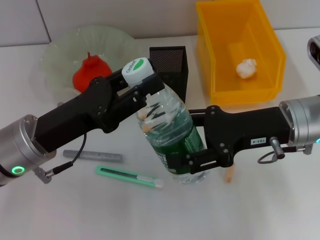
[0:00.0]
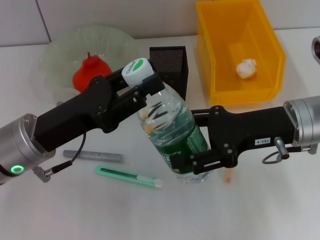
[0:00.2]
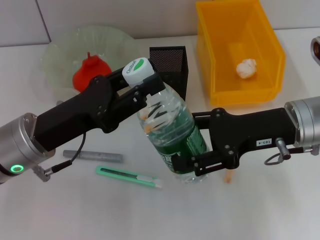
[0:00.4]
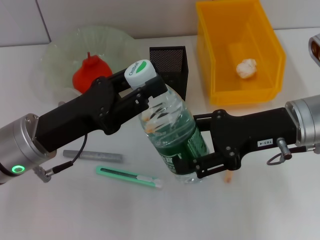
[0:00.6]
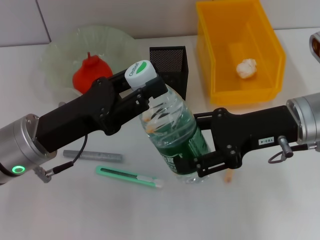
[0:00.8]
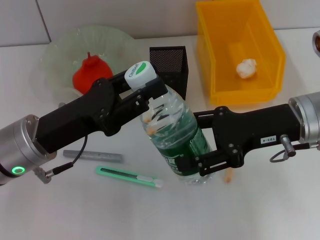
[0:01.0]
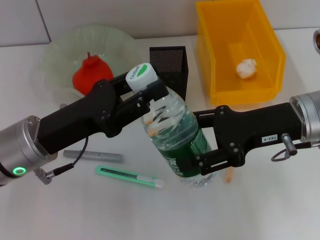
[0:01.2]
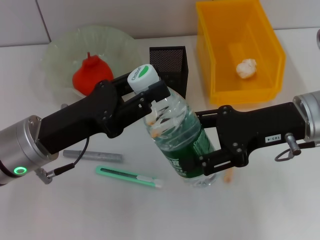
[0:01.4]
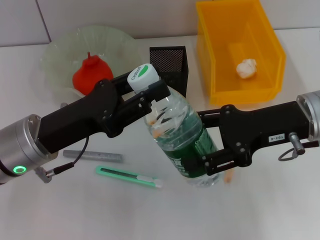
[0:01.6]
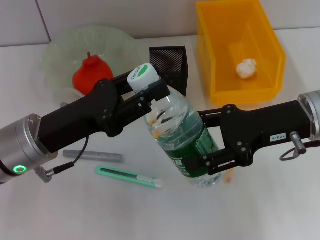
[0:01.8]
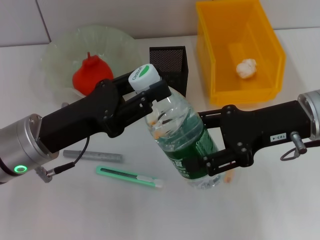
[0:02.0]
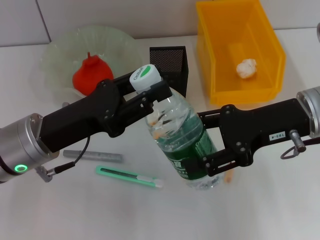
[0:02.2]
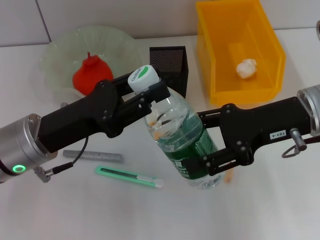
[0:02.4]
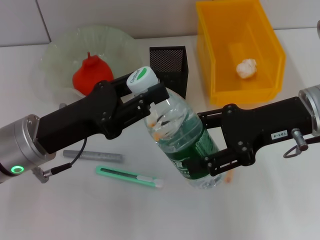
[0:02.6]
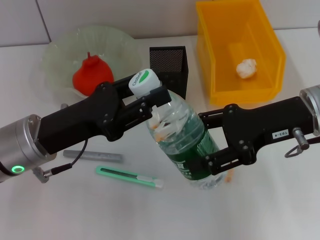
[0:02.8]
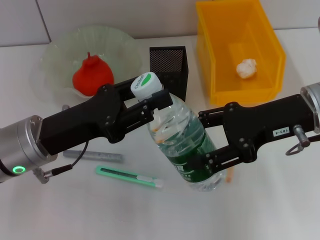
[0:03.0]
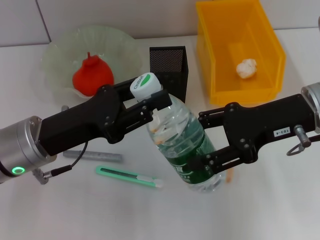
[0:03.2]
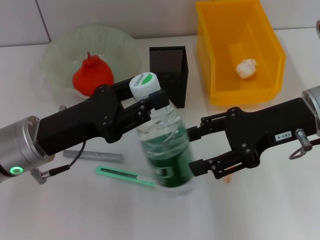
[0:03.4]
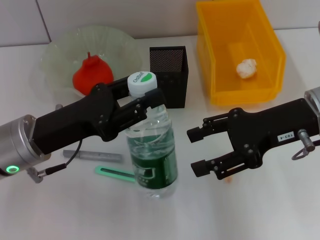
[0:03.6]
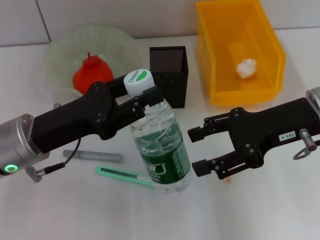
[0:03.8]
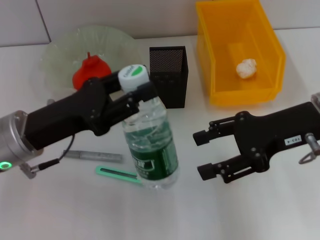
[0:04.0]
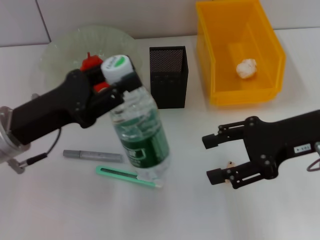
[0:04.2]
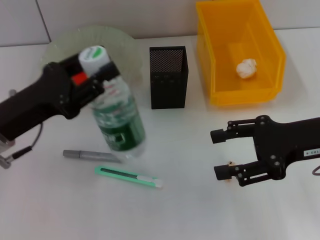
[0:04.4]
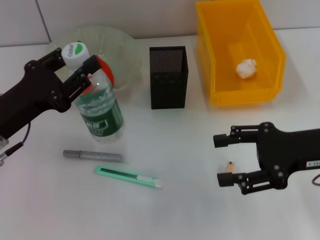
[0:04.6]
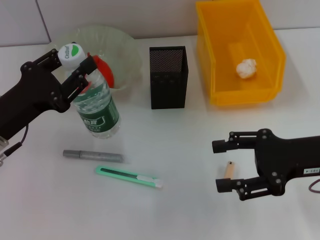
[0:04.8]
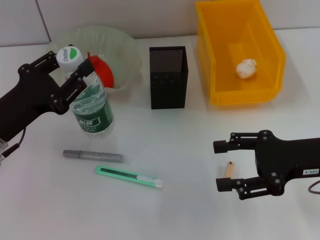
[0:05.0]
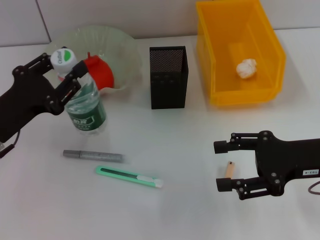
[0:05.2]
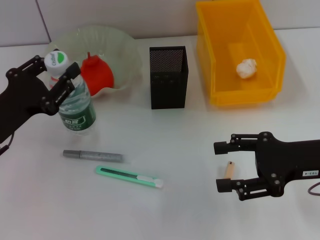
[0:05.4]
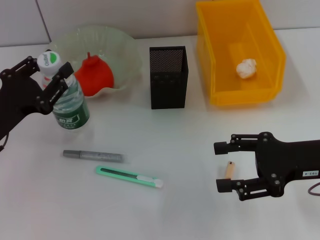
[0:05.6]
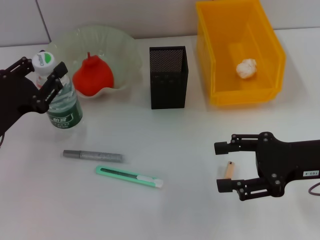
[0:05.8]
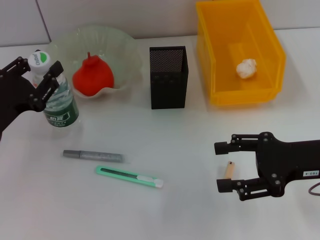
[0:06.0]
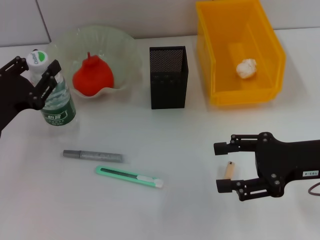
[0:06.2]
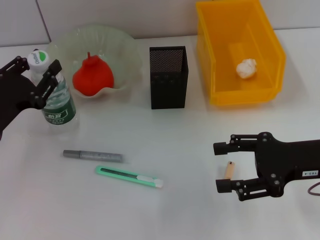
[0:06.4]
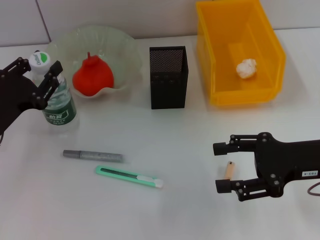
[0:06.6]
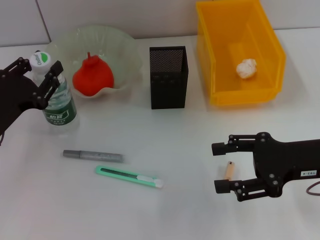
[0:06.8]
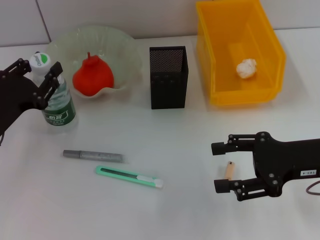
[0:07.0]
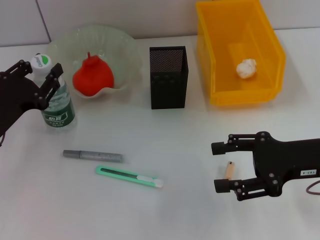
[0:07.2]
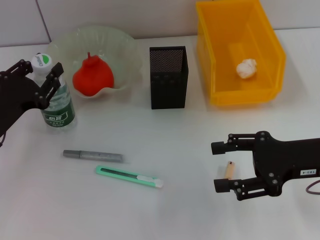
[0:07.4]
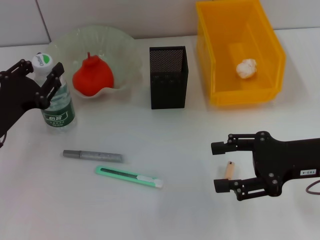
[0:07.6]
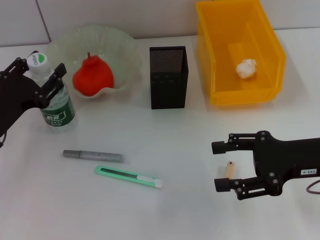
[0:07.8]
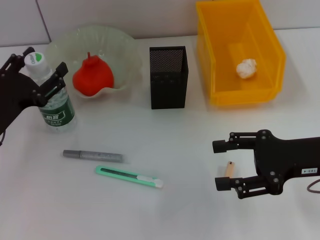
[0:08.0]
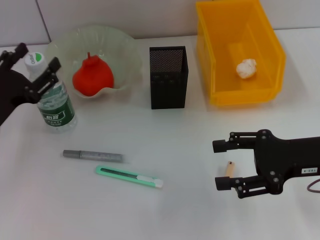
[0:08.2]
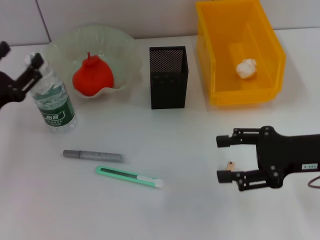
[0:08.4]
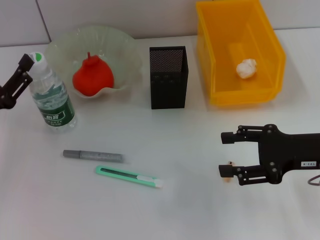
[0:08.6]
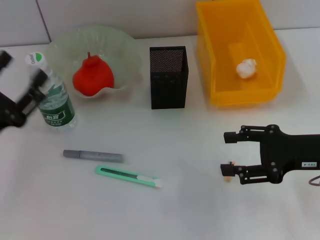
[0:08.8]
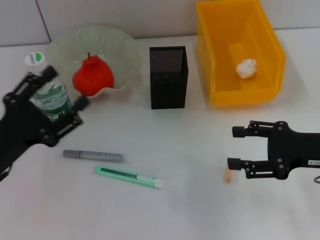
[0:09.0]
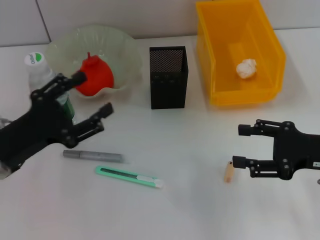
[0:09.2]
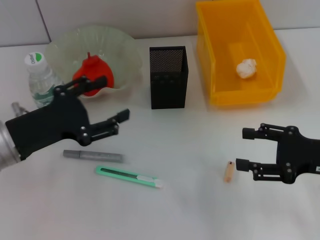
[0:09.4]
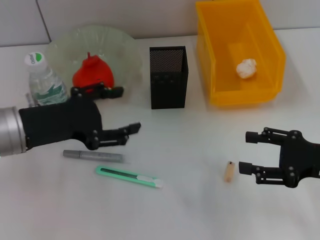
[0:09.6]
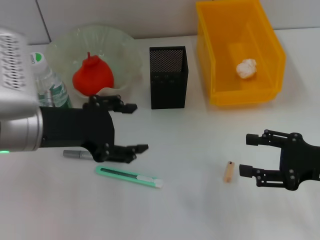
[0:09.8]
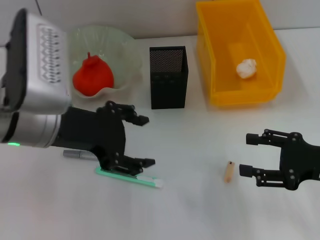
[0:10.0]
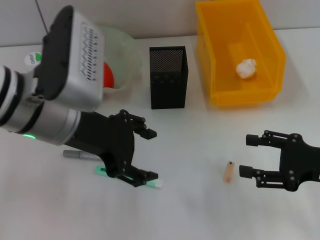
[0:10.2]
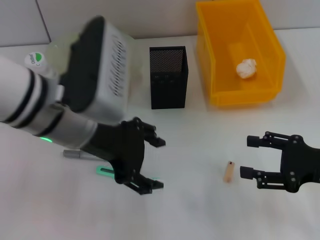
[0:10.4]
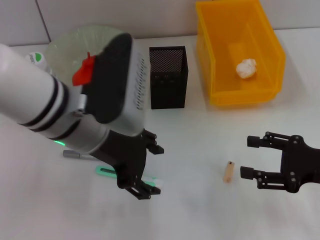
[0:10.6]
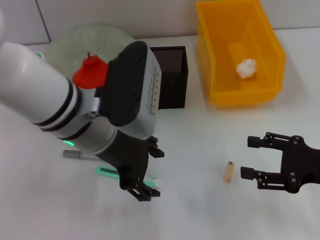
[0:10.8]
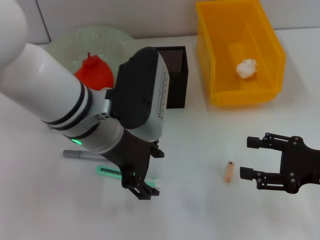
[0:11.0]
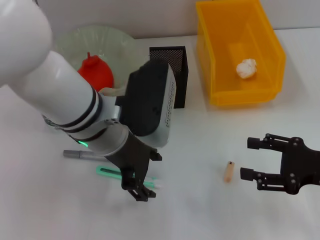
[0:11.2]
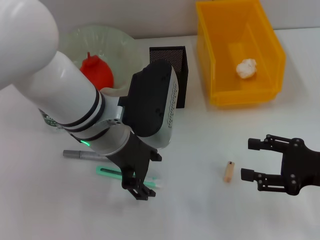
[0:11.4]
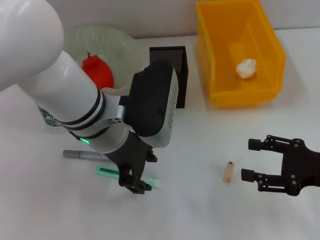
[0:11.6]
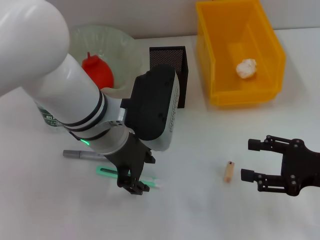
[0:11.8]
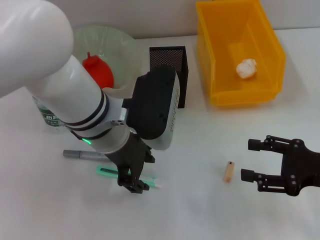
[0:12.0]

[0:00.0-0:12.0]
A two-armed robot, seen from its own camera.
Step, 0:00.0 to 0:03.2: Pass the water bottle from the right hand to the left hand.
Step, 0:03.6 to 0:08.0: Place the water bottle on the table with the left hand.
0:00.0 to 0:03.0: The grippers stay close to where they were, moving slightly.
0:03.0 to 0:04.4: The right gripper shifts by approximately 5 cm.
0:04.4 to 0:06.0: The left gripper changes place by some 5 cm.
0:06.0 to 0:07.6: The grippers make only small movements.
0:07.6 to 0:09.0: The left gripper is displaced backward by about 5 cm, and opens.
0:09.0 to 0:10.4: The left gripper goes about 20 cm to the right and upward.
0:10.4 to 0:12.0: The left gripper changes place by approximately 5 cm.

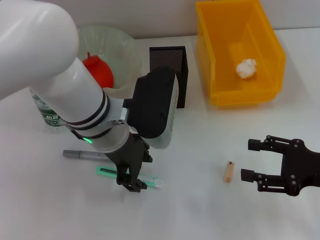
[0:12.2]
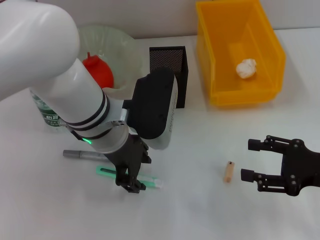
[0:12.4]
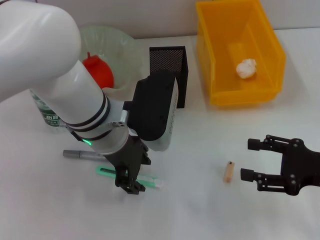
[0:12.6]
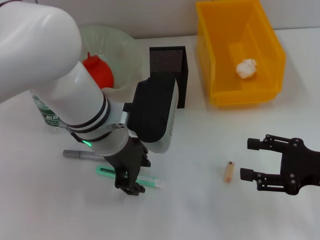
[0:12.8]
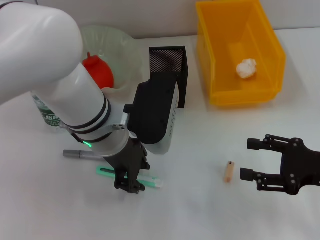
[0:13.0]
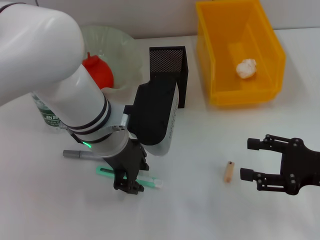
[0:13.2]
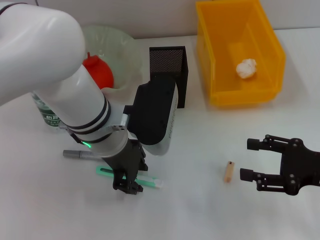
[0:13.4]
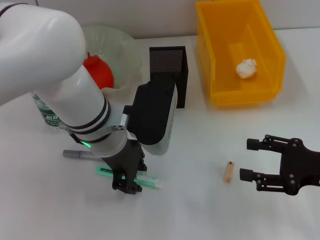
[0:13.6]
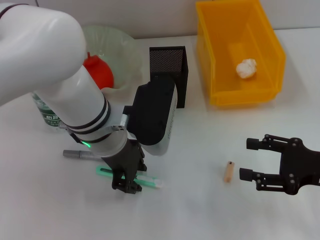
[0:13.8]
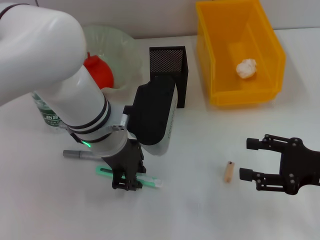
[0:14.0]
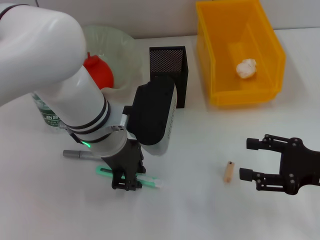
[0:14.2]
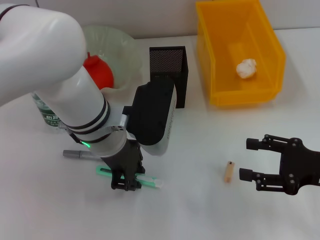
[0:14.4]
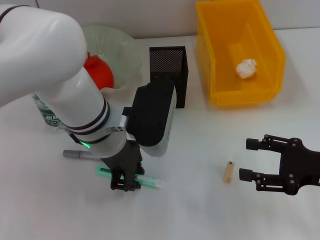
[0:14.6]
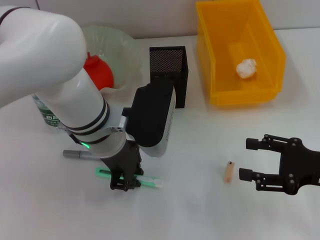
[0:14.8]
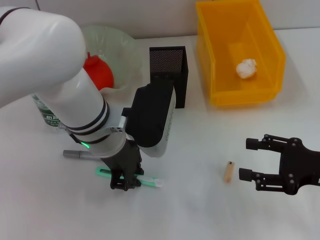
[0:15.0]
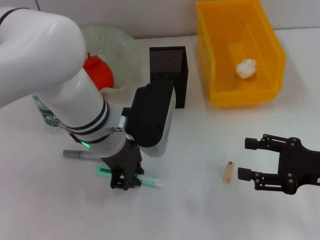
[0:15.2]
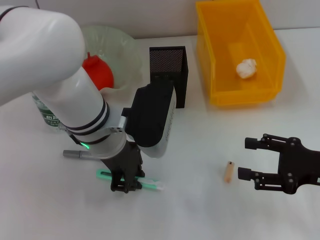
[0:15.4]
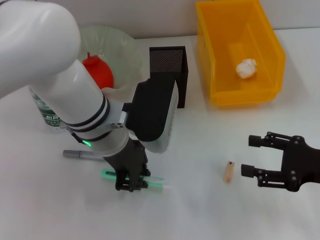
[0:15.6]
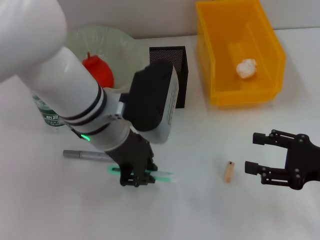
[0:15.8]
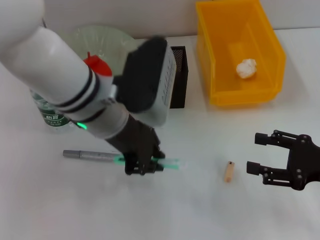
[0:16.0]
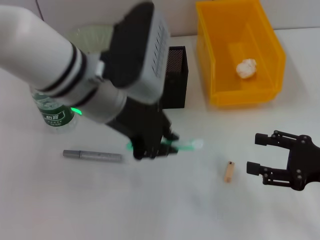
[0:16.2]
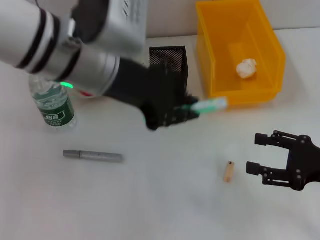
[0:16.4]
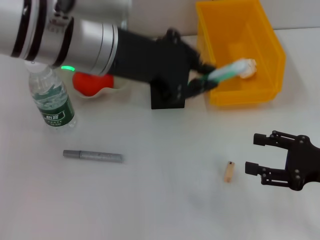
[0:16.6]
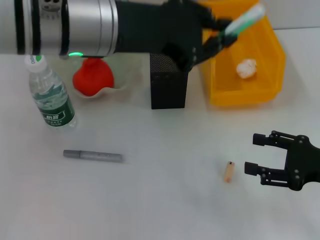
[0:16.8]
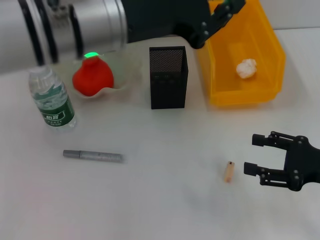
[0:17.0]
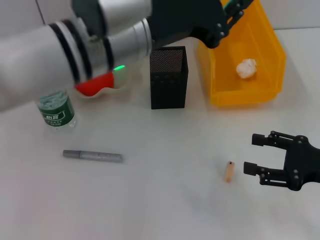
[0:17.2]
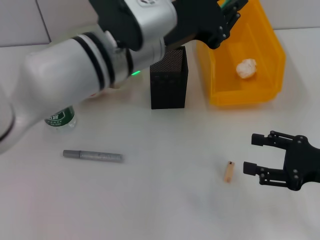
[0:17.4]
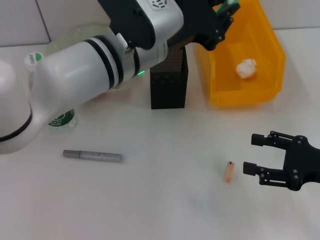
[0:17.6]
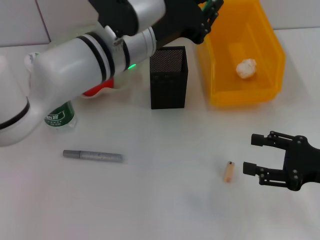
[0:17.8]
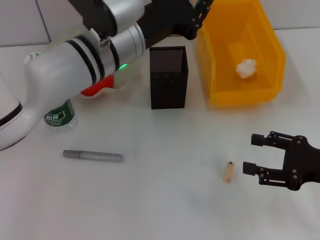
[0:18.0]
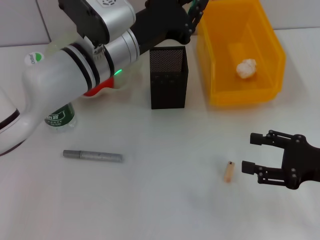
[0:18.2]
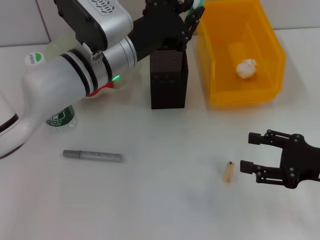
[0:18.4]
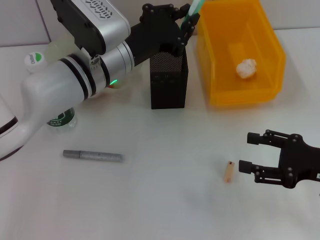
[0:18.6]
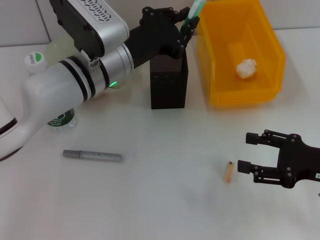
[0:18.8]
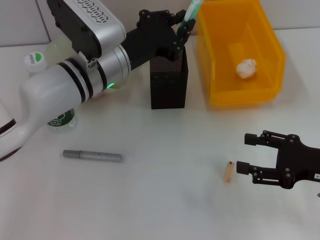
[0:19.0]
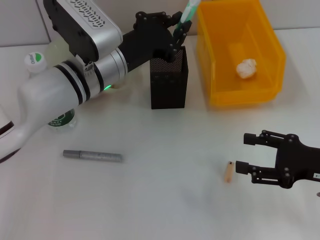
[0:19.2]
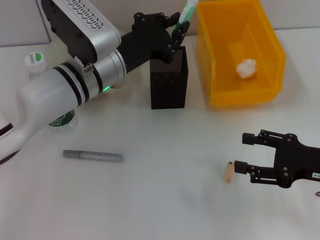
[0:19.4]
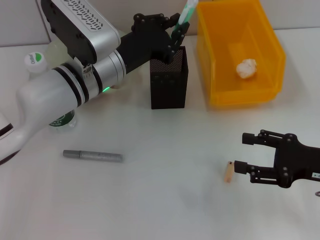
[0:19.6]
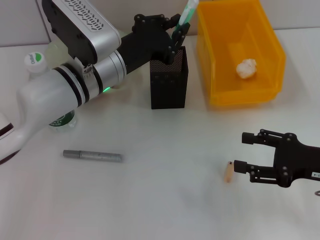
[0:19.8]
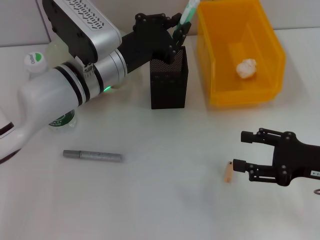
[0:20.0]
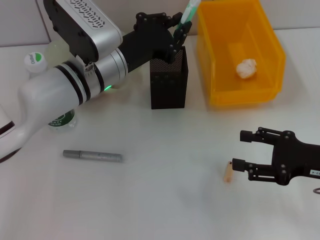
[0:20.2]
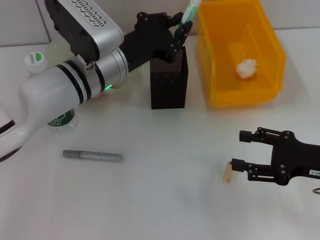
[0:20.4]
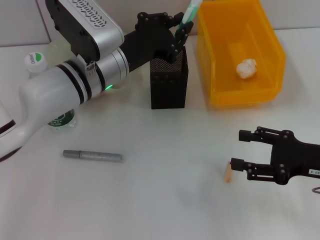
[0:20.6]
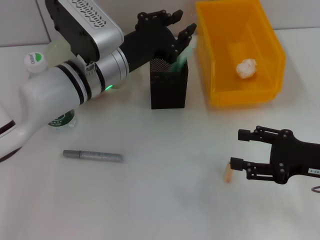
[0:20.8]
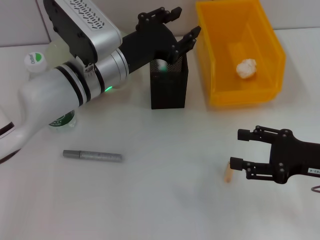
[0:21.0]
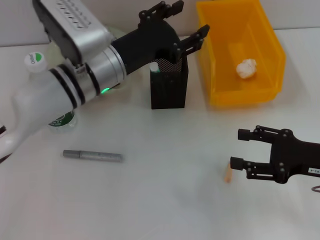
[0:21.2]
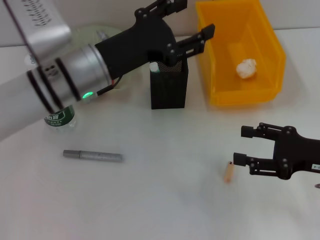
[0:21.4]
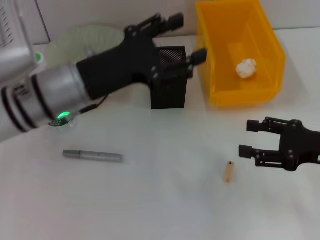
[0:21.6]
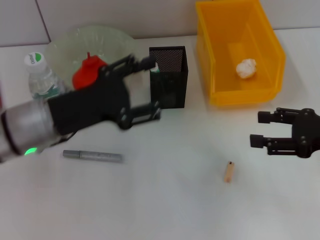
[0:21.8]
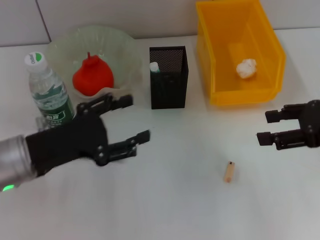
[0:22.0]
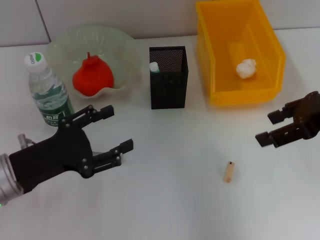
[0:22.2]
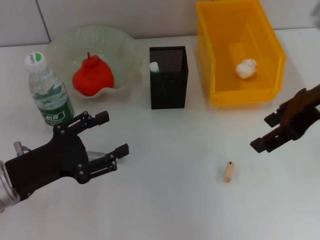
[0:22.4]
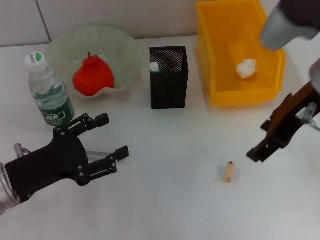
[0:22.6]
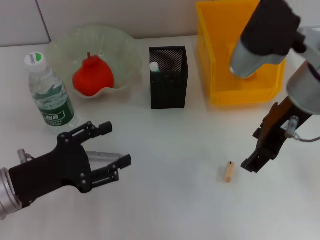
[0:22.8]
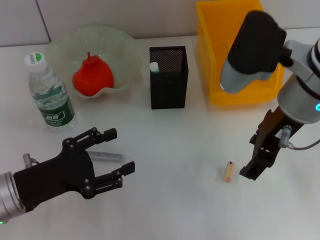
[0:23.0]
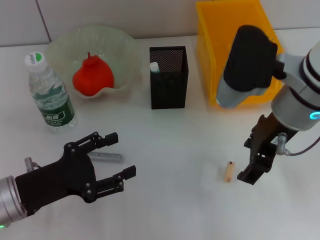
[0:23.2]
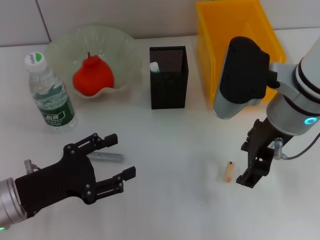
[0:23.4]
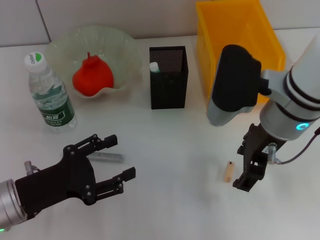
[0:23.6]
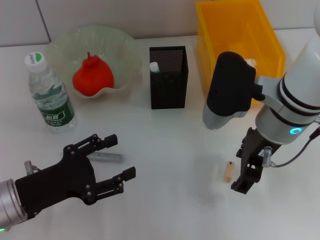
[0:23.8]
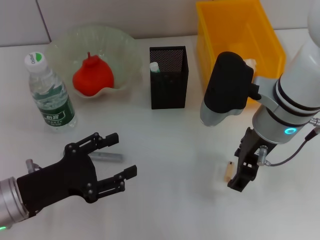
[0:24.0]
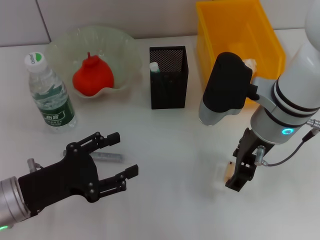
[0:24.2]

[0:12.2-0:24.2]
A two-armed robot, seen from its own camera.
Step, 0:12.2 to 0:15.2: Grab the blue utility knife with the left hand.
Step, 0:15.4 to 0:21.0: Place the blue utility knife into the pen holder with the left hand.
0:12.2 to 0:13.8: Both grippers stay about where they are.
0:13.8 to 0:15.2: The left gripper closes.
0:15.2 to 0:16.6: The left gripper travels upward by approximately 15 cm.
0:16.6 to 0:18.2: The left gripper travels downward by approximately 10 cm.
0:18.2 to 0:19.8: The grippers make only small movements.
0:19.8 to 0:21.2: The left gripper opens.
0:21.2 to 0:22.6: The right gripper shifts some 20 cm upward, to the left and forward; the left gripper travels to the left, backward and downward by approximately 20 cm.
0:22.6 to 0:24.2: The right gripper shifts about 10 cm downward.
